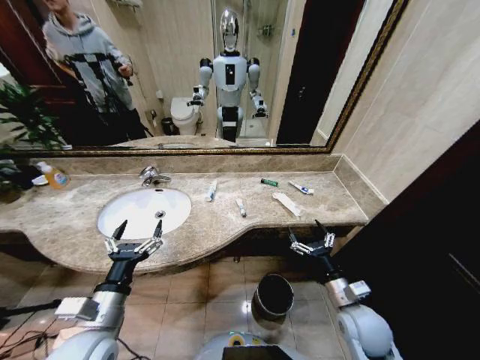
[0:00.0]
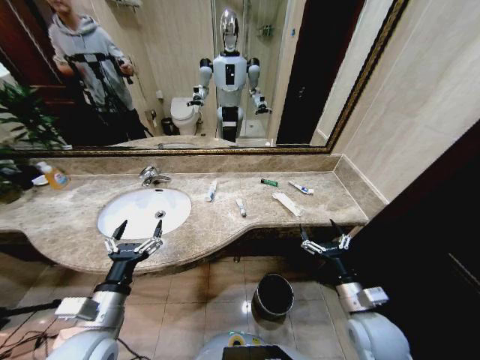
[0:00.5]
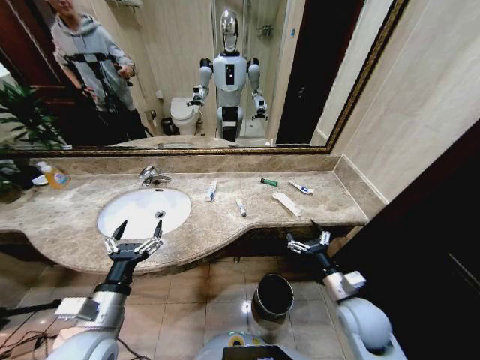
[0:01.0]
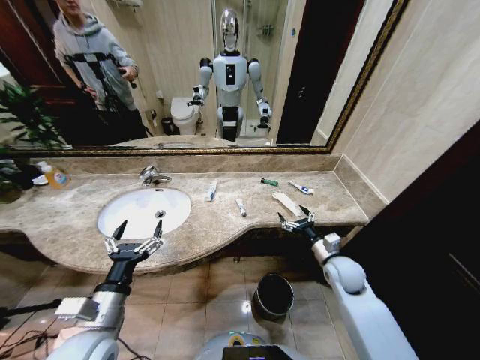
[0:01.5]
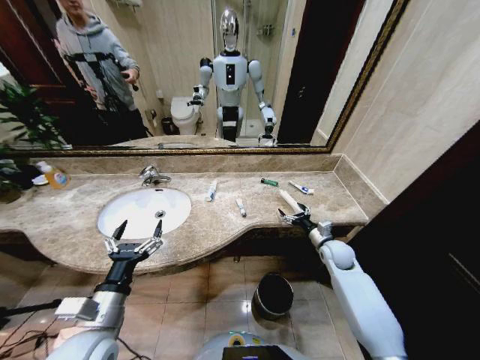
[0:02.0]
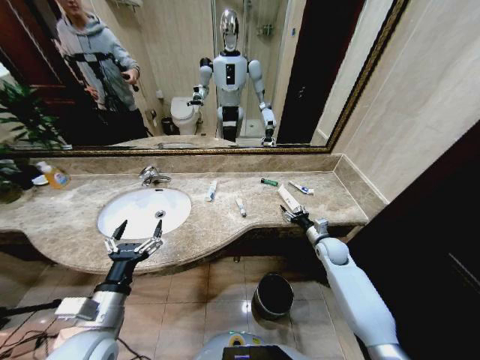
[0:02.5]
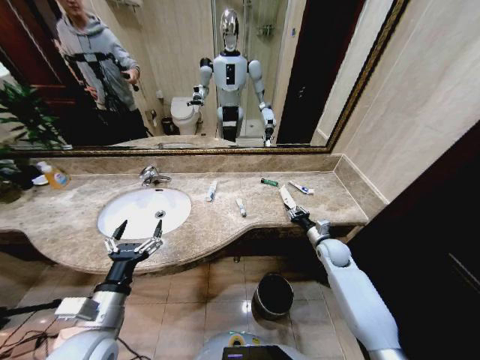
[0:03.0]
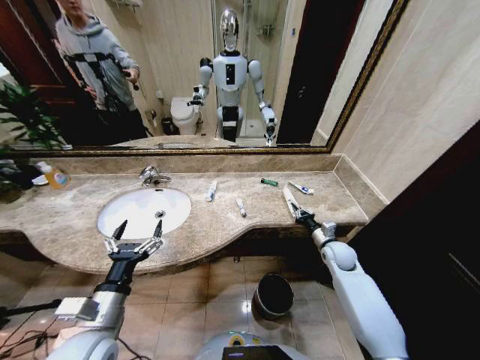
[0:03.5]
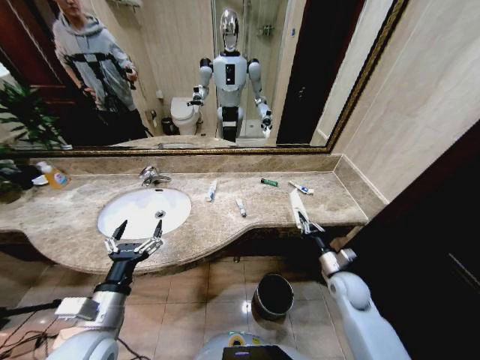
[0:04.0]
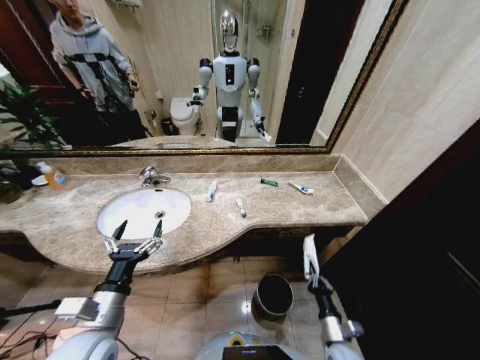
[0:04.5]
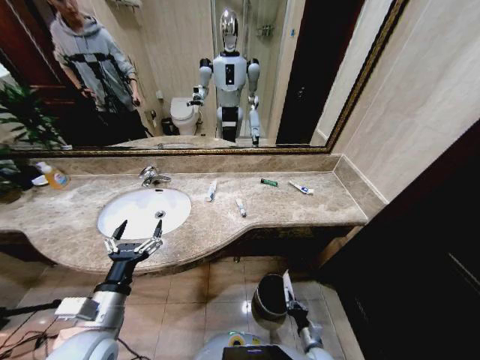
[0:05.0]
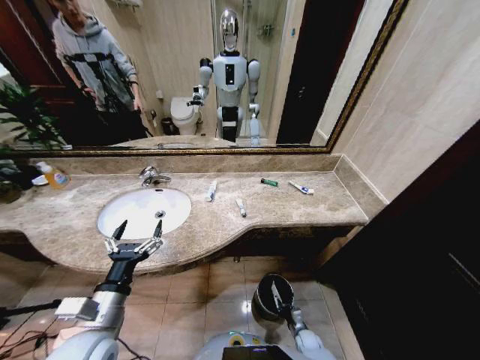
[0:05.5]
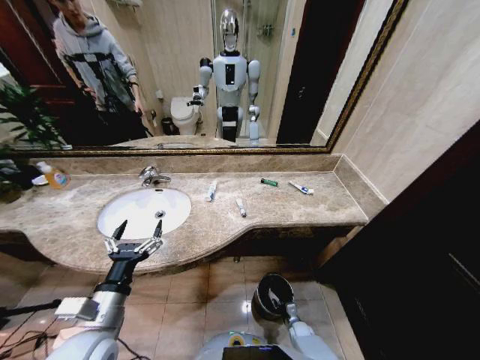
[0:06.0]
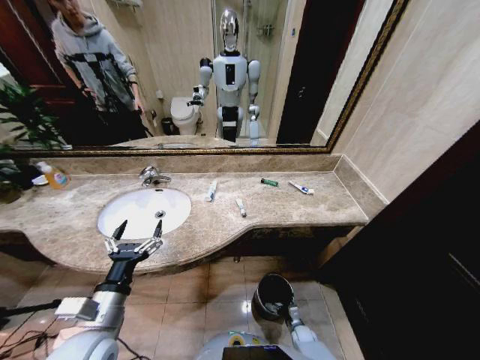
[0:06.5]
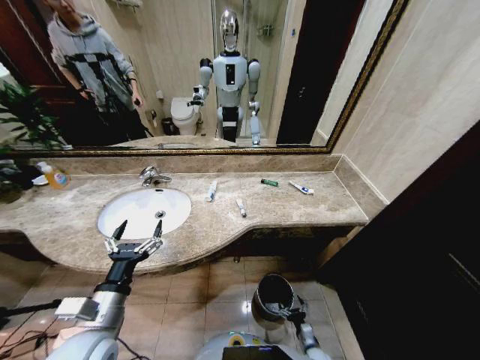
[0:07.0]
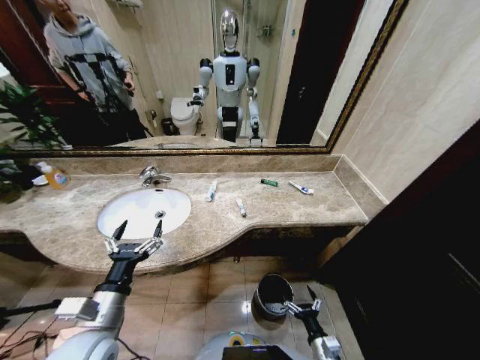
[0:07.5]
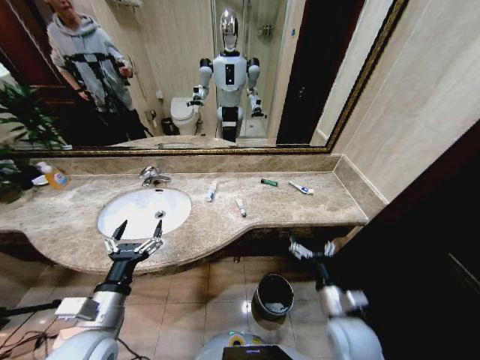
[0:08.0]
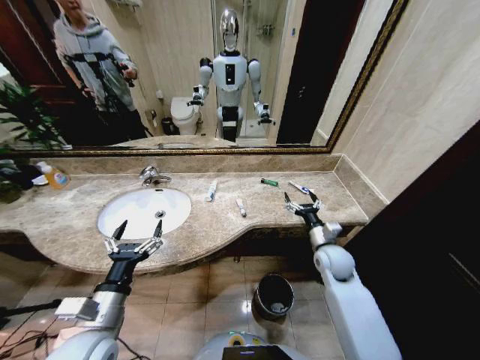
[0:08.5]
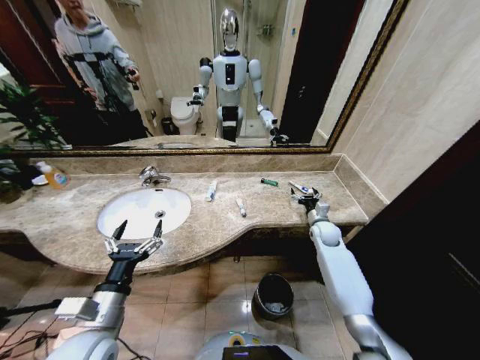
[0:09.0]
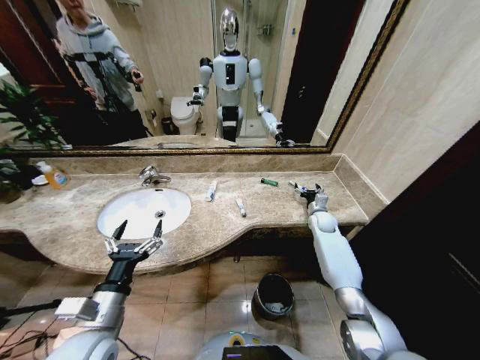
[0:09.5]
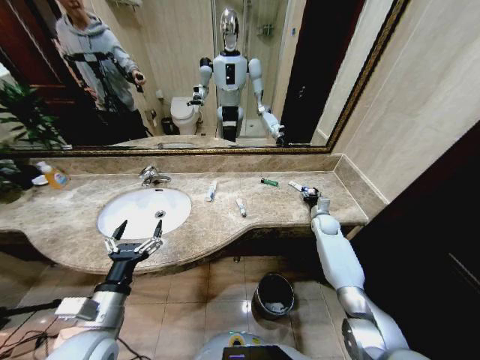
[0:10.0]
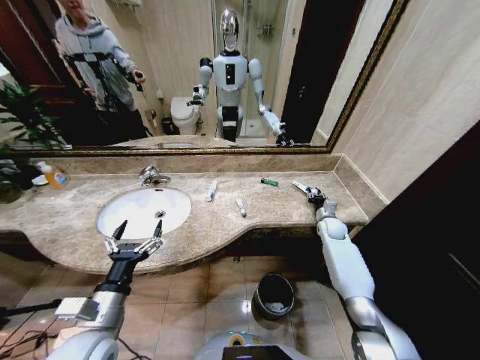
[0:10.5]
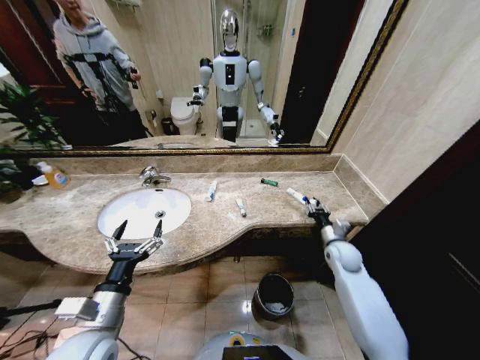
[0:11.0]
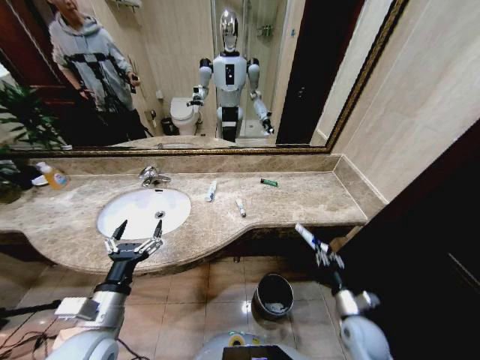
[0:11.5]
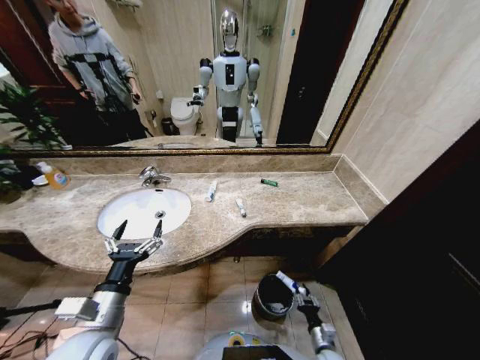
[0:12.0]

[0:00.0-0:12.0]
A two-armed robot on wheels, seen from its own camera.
Task of the whole recording: Pick up the trash from the sink and place it in the trash bin.
0:02.0 to 0:04.0: The right gripper goes about 10 cm backward, and closes up.
0:04.0 to 0:06.0: The right gripper is displaced downward by roughly 35 cm.
0:06.0 to 0:08.0: The right gripper is displaced upward by some 40 cm, and opens up.
0:08.0 to 0:10.0: The right gripper heads forward, covering some 35 cm, and closes.
0:10.0 to 0:12.0: The right gripper goes about 50 cm backward and downward.

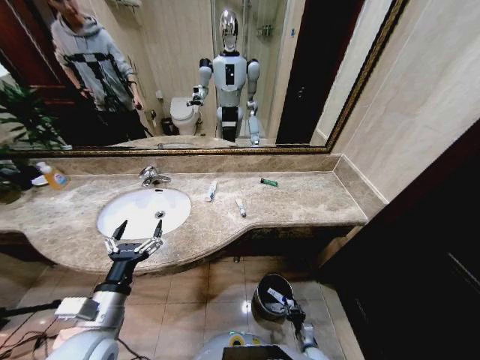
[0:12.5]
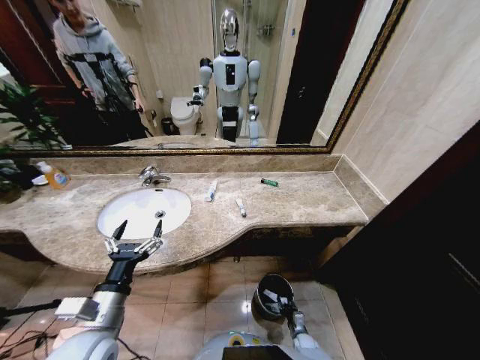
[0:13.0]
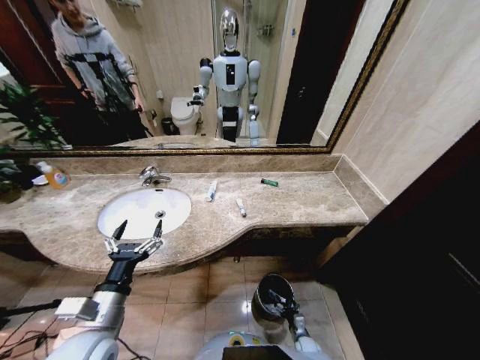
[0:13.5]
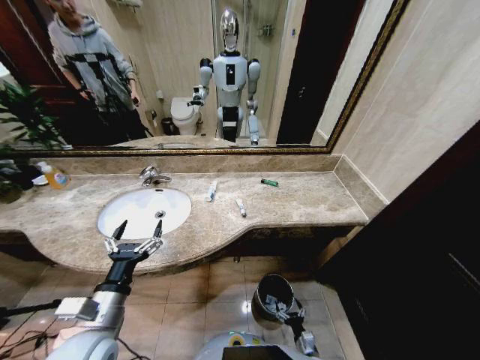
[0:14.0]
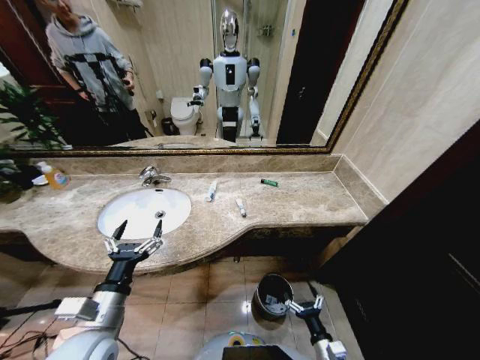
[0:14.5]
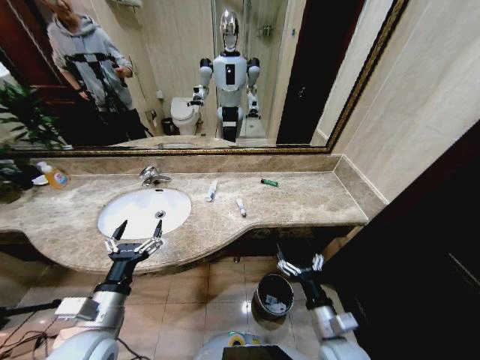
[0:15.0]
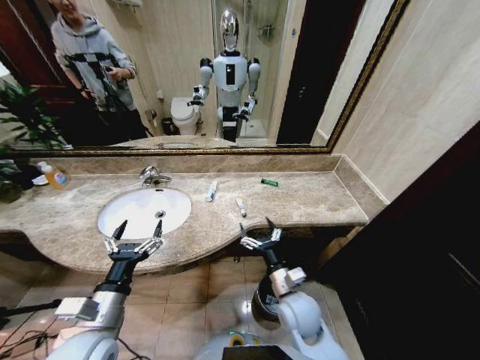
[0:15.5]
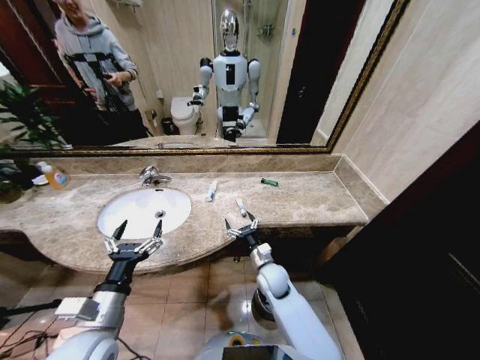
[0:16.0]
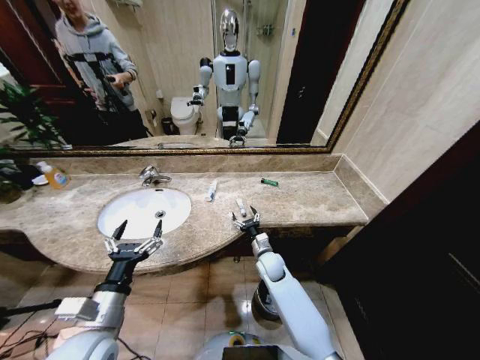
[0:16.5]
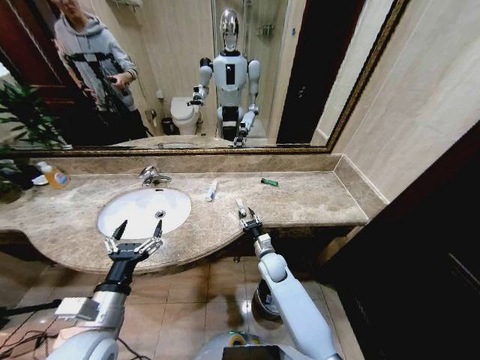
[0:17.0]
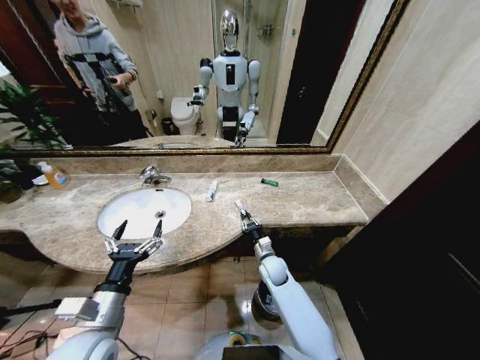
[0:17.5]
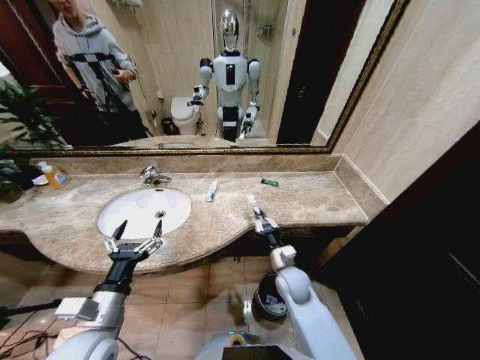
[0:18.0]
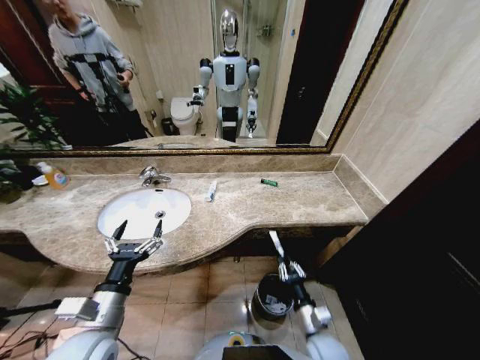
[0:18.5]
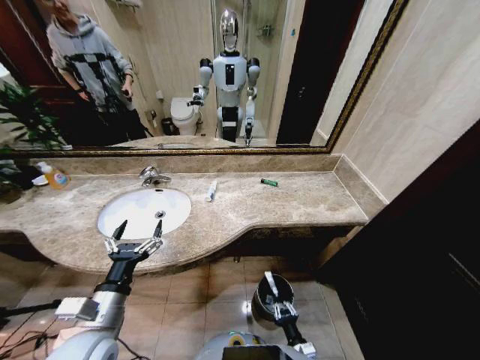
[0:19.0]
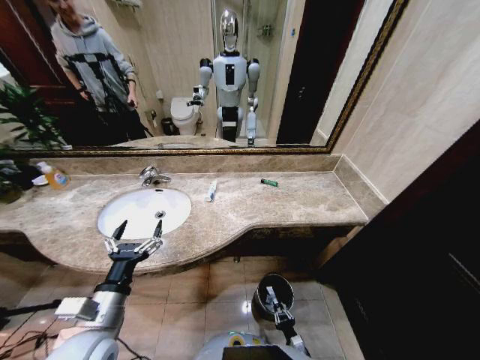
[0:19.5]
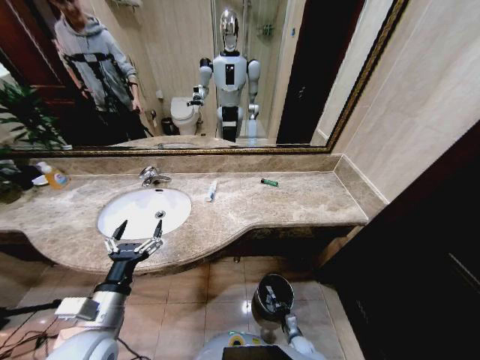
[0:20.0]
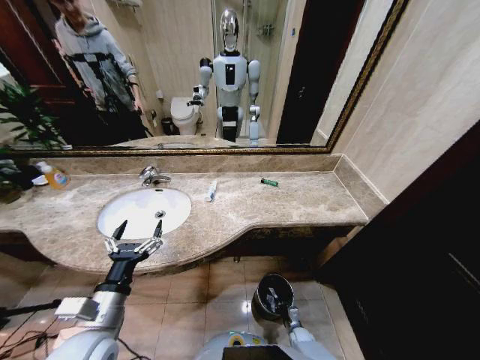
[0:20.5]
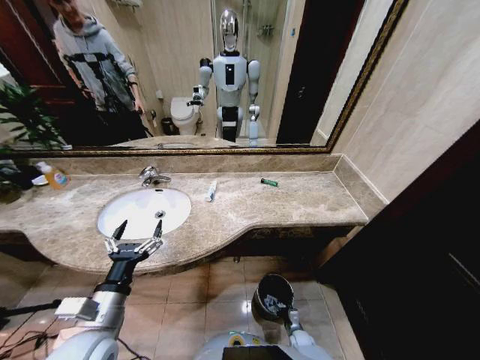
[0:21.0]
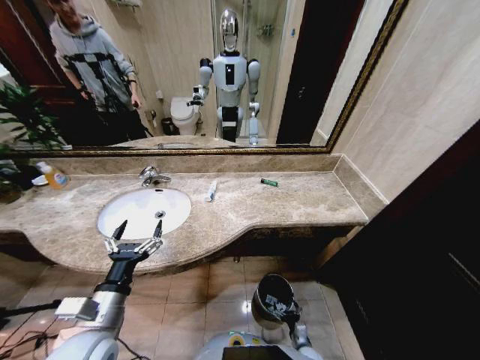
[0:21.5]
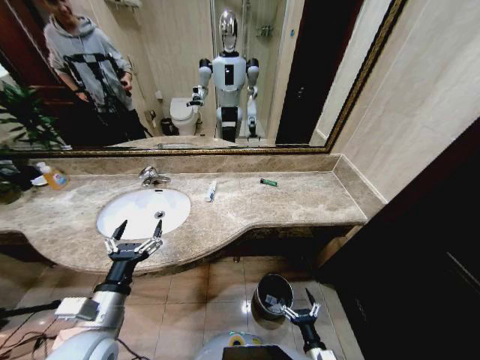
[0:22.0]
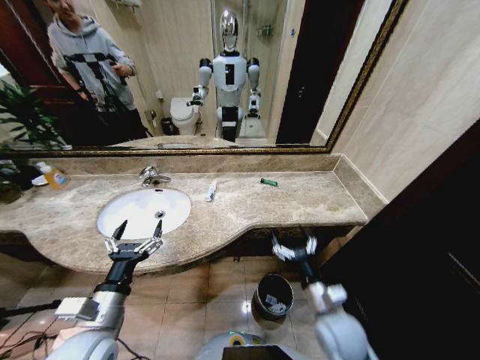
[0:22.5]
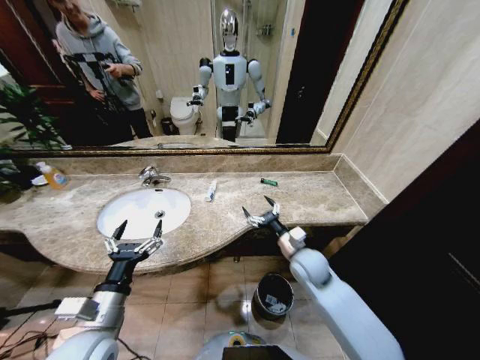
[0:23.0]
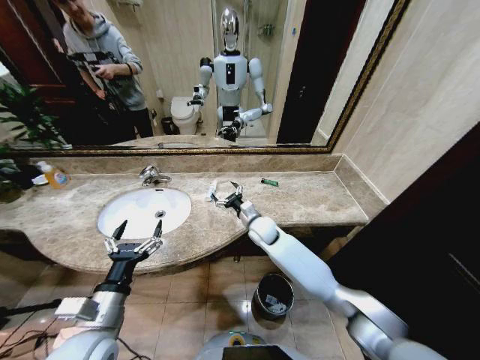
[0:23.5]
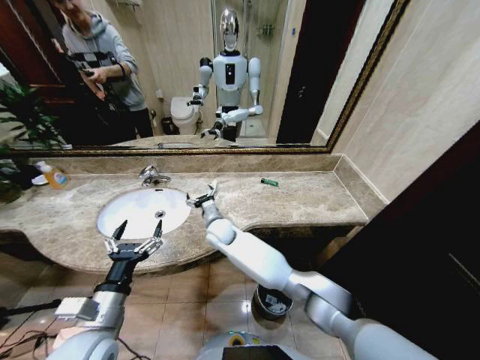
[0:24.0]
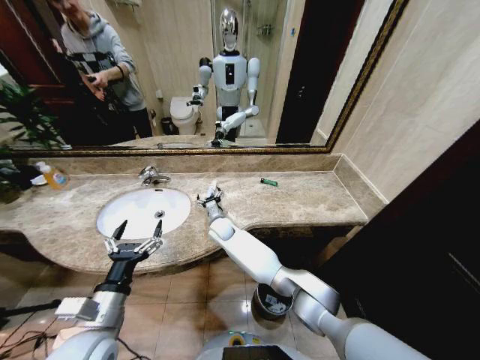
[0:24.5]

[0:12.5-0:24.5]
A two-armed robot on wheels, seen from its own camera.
Task of the whole recording: Pick up the trash from the sink and place it in the trash bin.
0:12.5 to 0:14.5: The right gripper heads upward, covering about 20 cm, and opens.
0:14.5 to 0:16.5: The right gripper travels forward and to the left by about 35 cm.
0:16.5 to 0:18.5: The right gripper heads backward and to the right, covering approximately 25 cm, and closes.
0:18.5 to 0:20.5: The right gripper goes approximately 30 cm downward.
0:20.5 to 0:22.5: The right gripper moves upward, roughly 40 cm, and opens up.
0:22.5 to 0:24.5: The right gripper shifts approximately 40 cm forward and to the left.

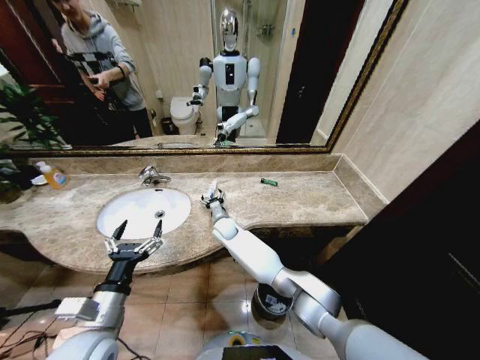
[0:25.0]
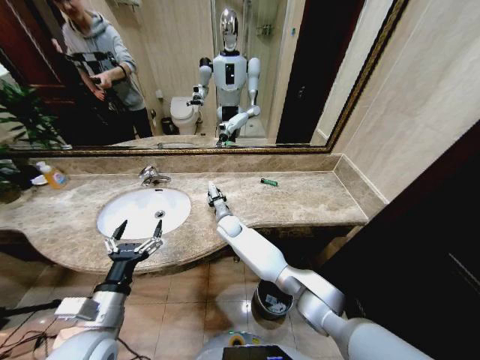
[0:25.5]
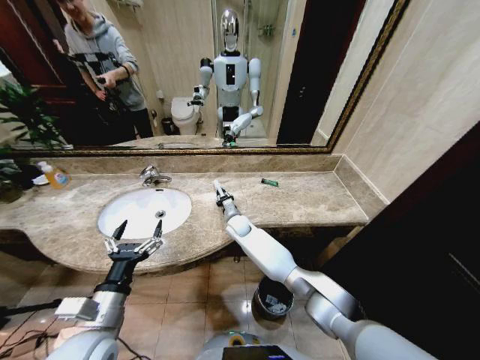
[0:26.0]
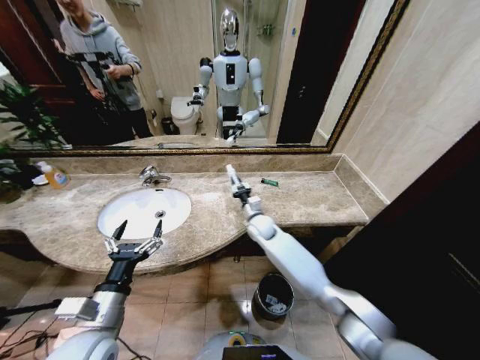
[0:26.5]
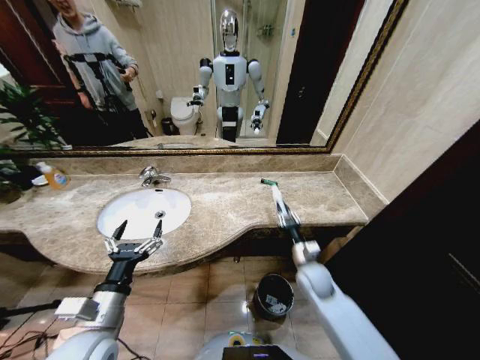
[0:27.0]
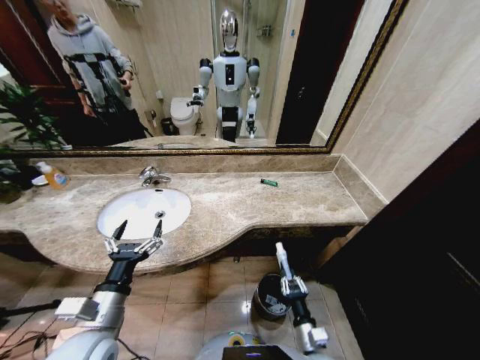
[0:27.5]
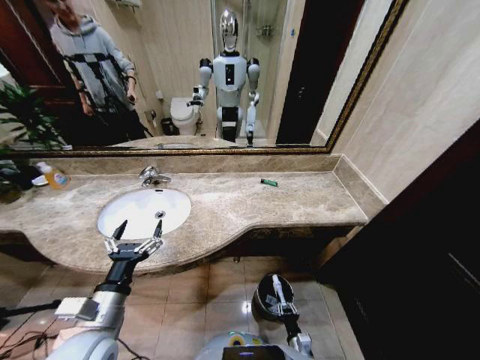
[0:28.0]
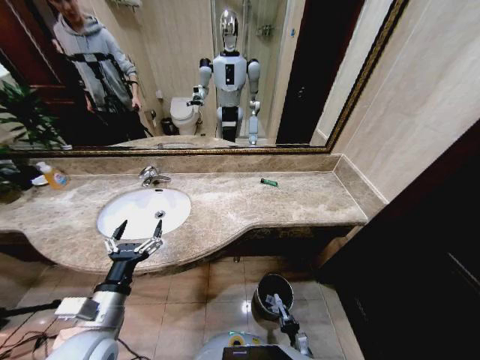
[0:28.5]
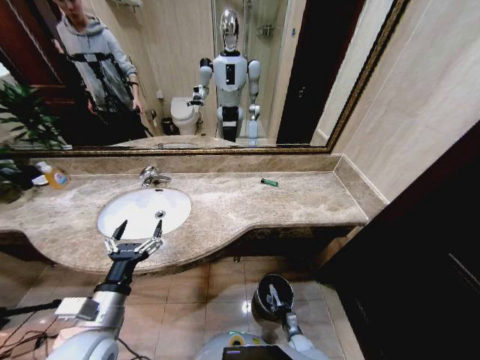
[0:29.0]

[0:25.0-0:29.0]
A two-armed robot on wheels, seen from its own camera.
Task of the whole recording: Pick up the trash from the sink and place it in the trash bin.
0:25.0 to 0:27.0: The right gripper shifts approximately 35 cm to the right and backward, and closes.
0:27.0 to 0:29.0: The right gripper goes about 35 cm downward.
